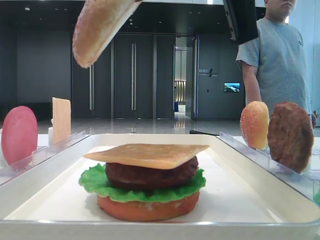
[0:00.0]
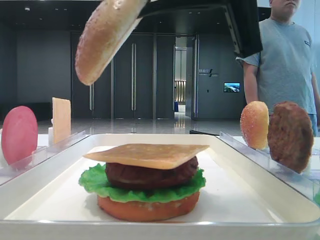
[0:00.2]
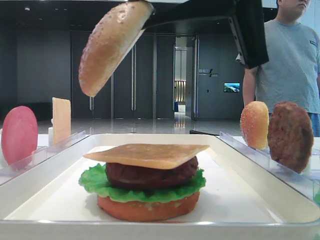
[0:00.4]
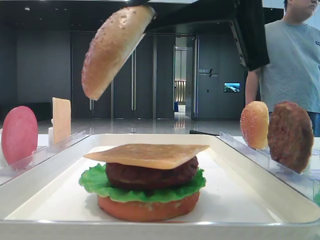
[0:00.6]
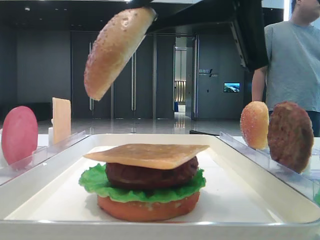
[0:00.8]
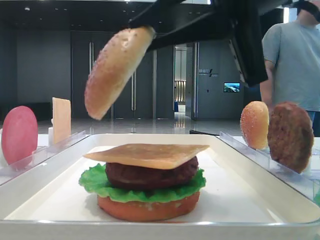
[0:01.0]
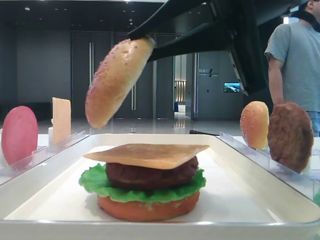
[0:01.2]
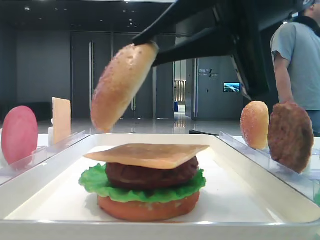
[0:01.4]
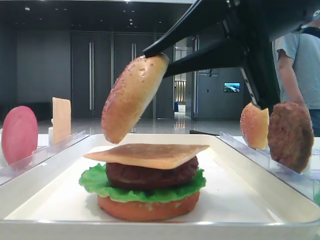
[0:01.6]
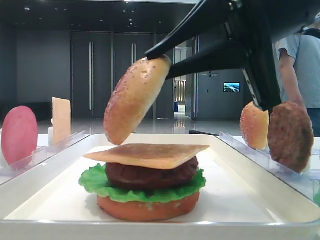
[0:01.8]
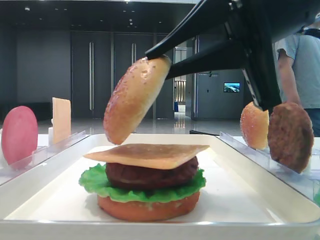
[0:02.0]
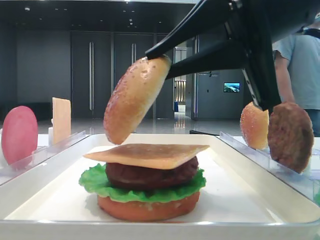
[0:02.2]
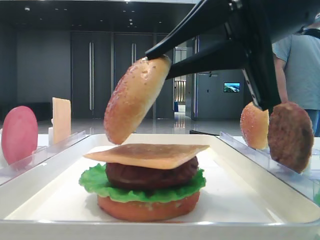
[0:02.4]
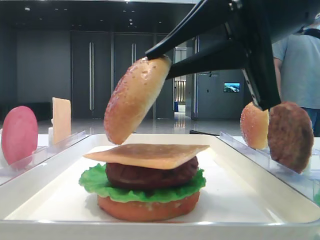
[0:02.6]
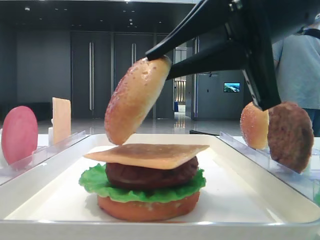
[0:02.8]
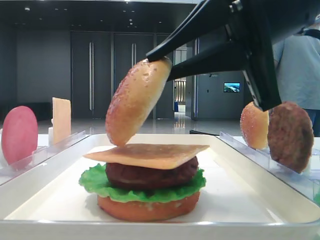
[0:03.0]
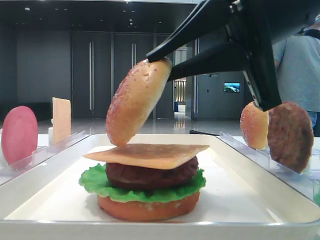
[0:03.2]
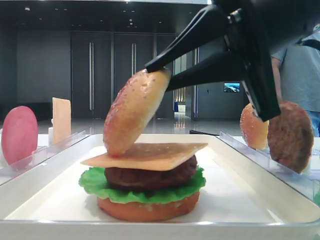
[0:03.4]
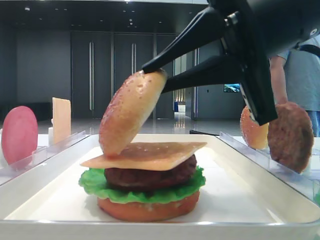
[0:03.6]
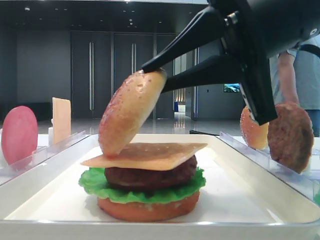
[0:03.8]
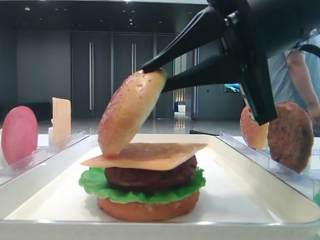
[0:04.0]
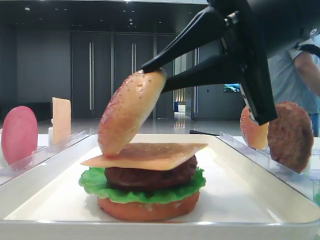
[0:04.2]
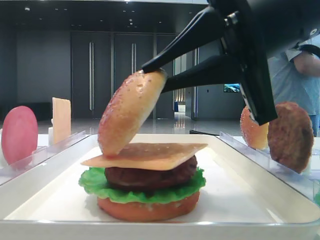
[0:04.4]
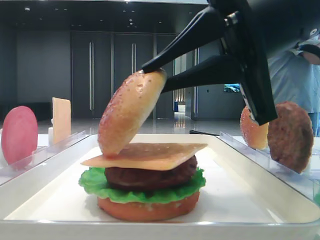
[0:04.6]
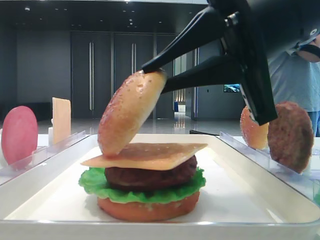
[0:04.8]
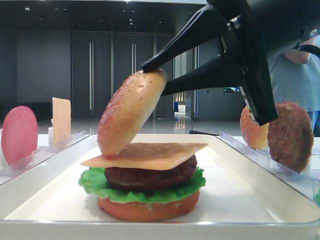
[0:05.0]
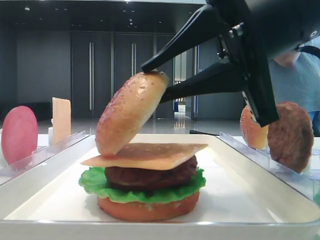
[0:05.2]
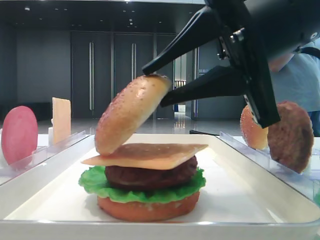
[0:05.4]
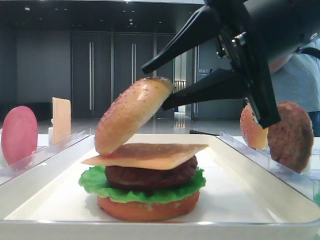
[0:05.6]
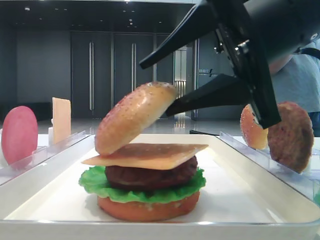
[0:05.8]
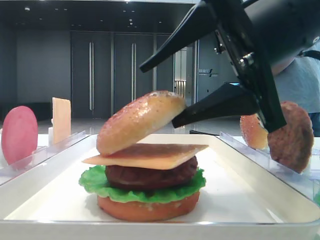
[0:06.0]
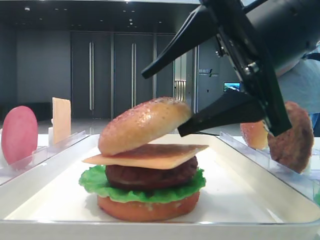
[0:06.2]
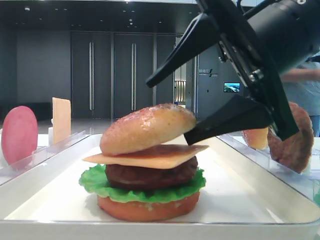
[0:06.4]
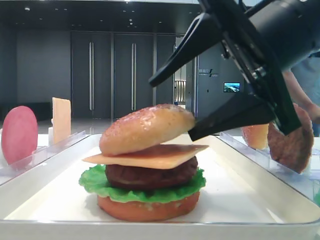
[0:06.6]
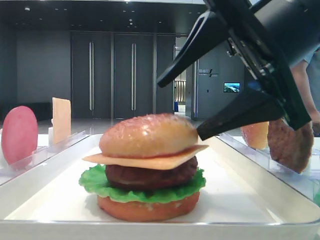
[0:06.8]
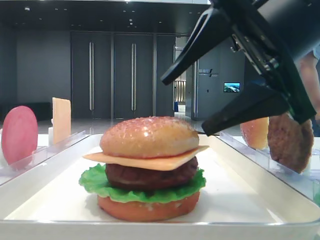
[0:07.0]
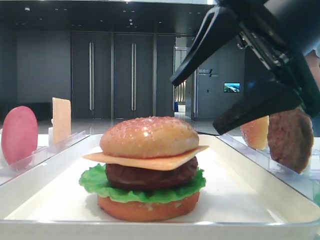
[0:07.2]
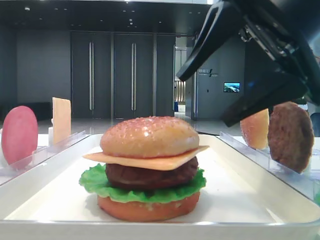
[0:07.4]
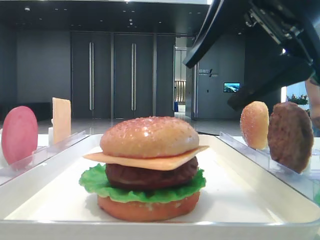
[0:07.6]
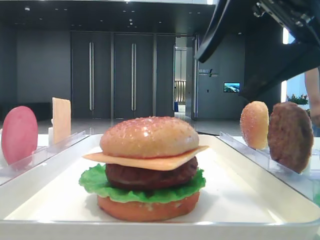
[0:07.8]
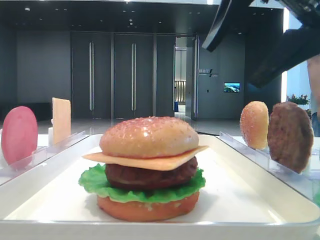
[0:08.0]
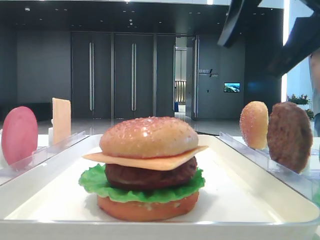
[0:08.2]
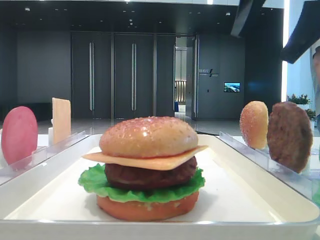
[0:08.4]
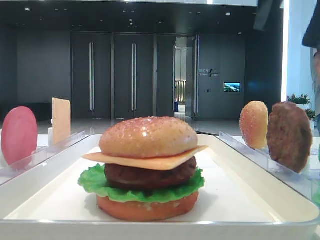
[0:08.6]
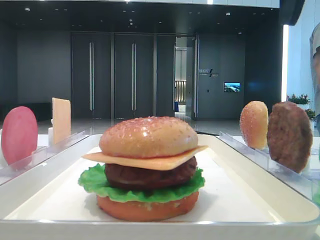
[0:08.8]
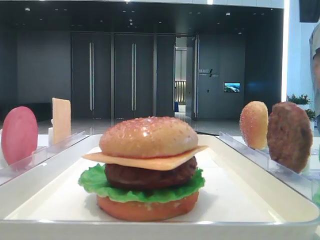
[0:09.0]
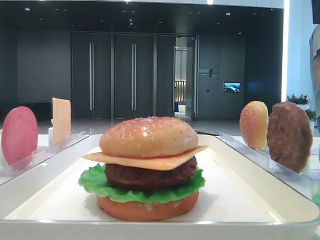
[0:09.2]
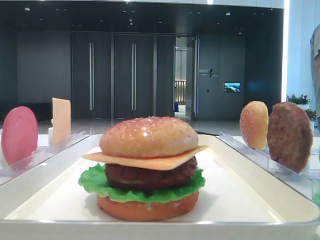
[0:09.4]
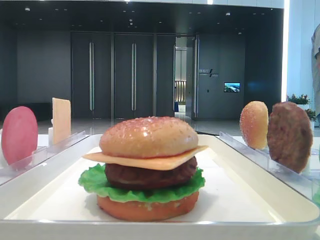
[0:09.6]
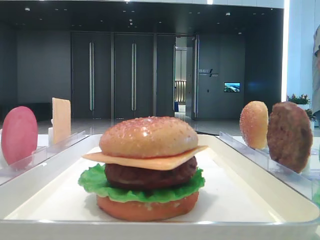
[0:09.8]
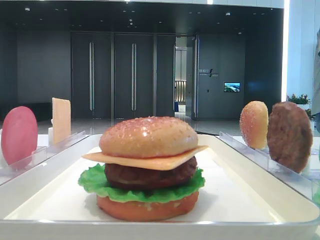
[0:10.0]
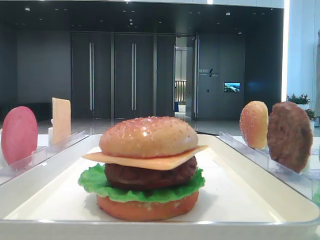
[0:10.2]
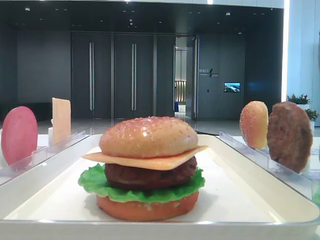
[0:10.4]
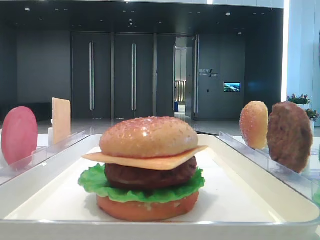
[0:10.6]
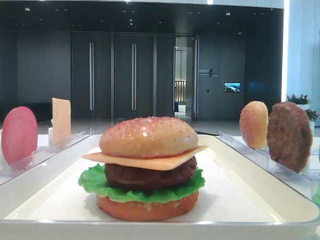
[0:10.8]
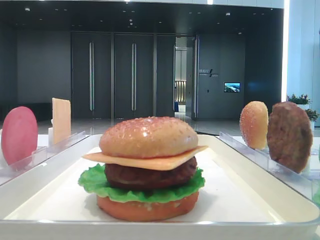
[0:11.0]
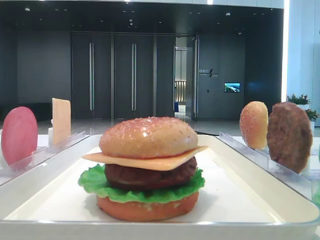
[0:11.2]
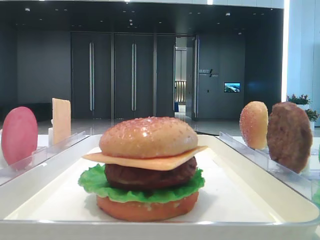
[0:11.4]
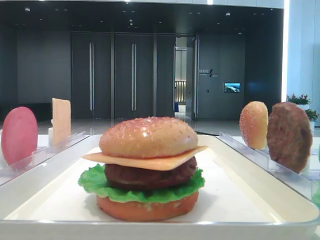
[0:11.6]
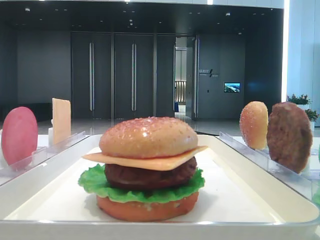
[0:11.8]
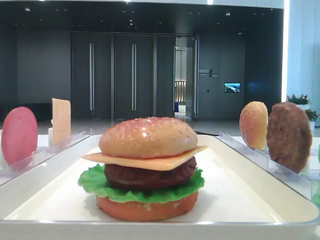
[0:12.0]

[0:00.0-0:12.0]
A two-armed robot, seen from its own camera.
Step, 0.0 to 6.6 s: Place the top bread slice on the cheese with the right hand.
0.0 to 1.6 s: The right gripper shifts about 5 cm downward.
1.6 to 3.0 s: Both grippers stay put.
3.0 to 4.4 s: The two grippers keep their place.
4.4 to 6.0 s: The right gripper opens up.
6.0 to 7.6 s: The grippers make only small movements.
7.6 to 9.0 s: The right gripper heads upward and to the right, covering approximately 10 cm.
9.0 to 10.4 s: The right gripper moves to the right, approximately 10 cm.
10.4 to 12.0 s: The right gripper is displaced backward by approximately 20 cm.

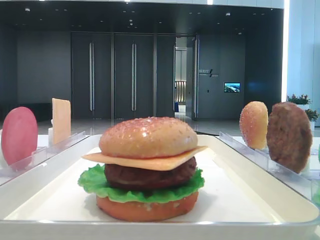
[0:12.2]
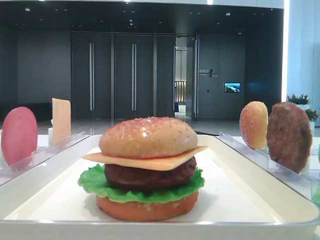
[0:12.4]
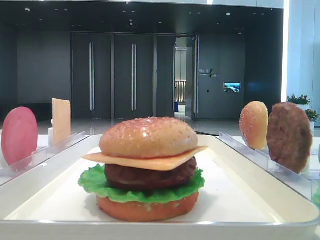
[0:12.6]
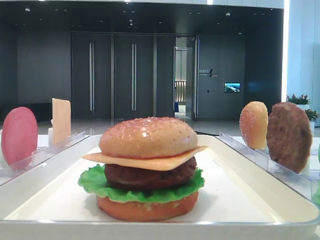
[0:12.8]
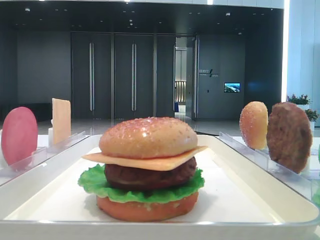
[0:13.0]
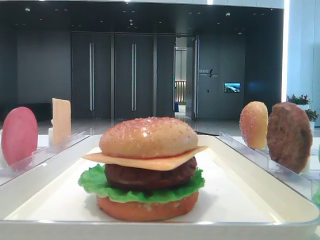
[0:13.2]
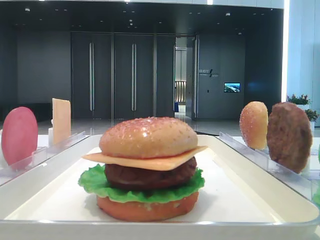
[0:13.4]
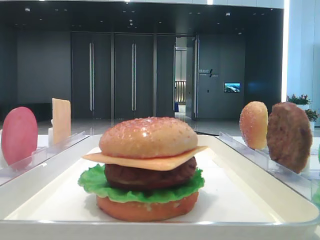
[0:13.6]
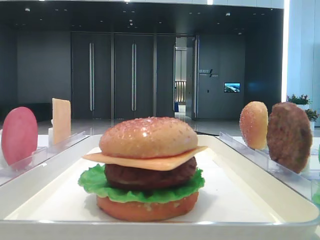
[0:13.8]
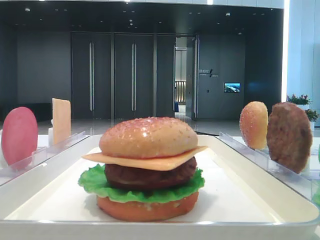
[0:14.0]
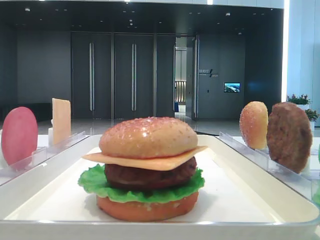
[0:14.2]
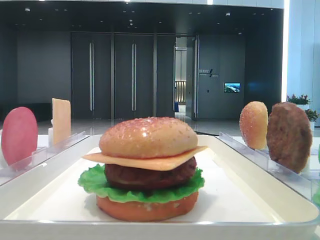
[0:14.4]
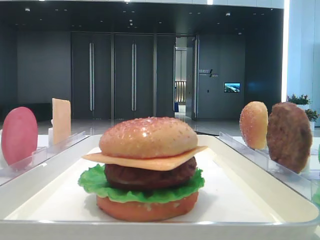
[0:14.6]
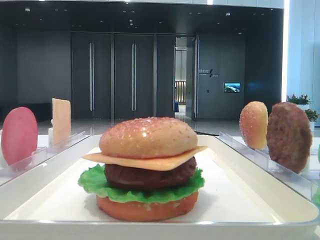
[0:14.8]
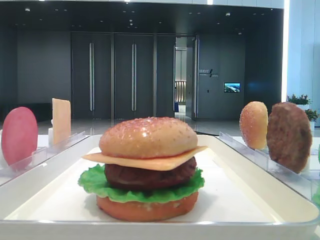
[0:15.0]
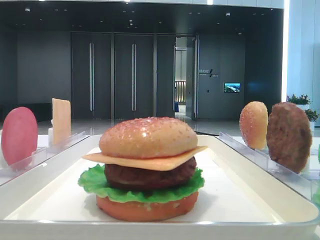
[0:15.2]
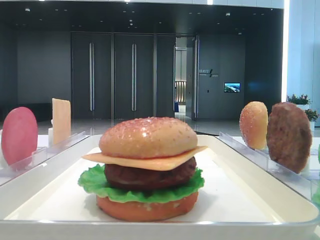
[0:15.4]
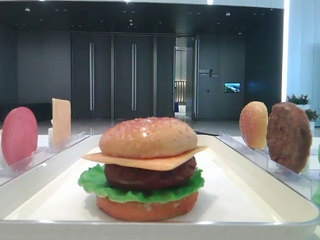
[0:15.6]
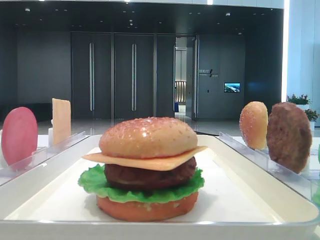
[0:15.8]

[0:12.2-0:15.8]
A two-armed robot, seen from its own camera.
14.0 to 15.8 s: Both grippers stay about where they are.

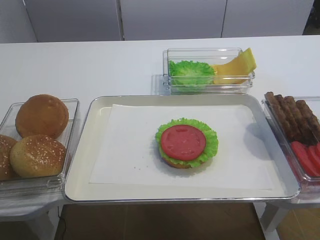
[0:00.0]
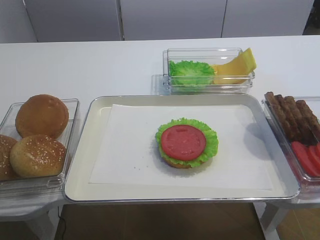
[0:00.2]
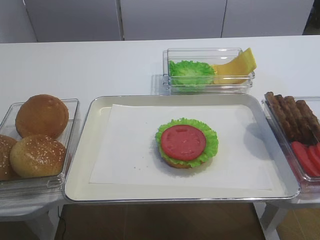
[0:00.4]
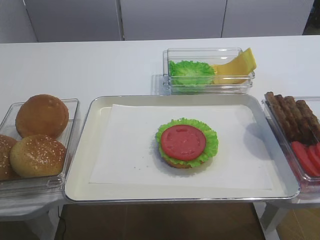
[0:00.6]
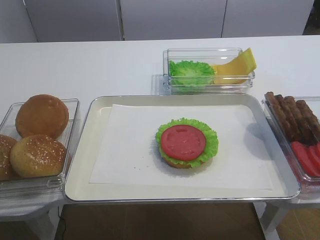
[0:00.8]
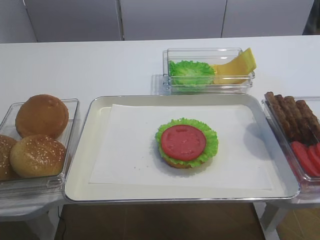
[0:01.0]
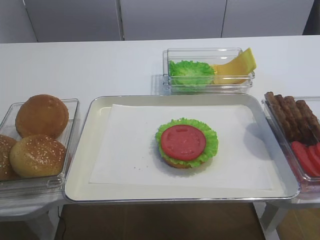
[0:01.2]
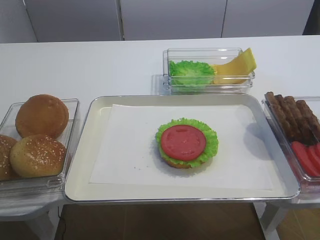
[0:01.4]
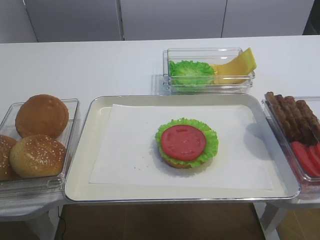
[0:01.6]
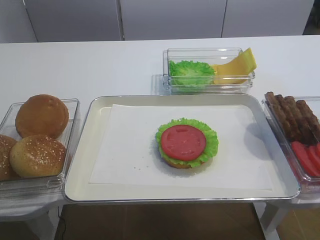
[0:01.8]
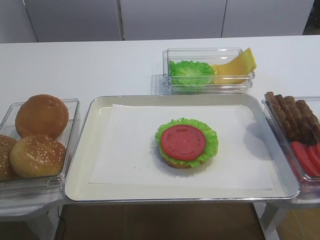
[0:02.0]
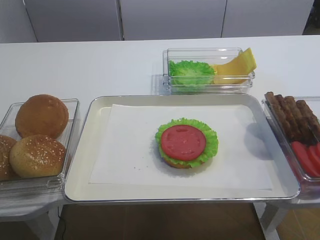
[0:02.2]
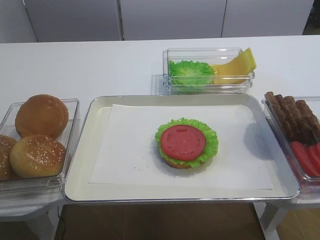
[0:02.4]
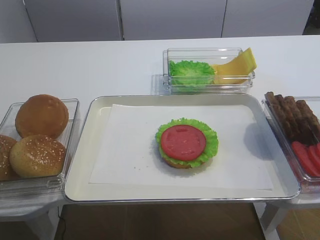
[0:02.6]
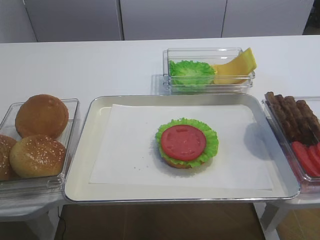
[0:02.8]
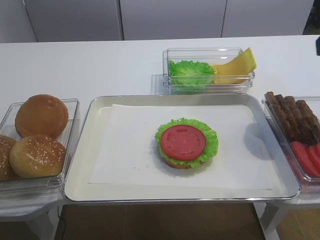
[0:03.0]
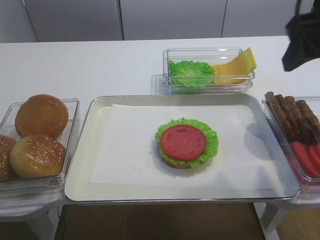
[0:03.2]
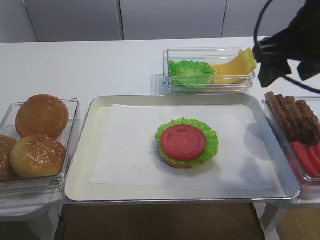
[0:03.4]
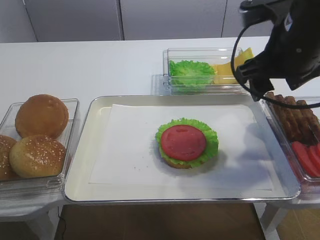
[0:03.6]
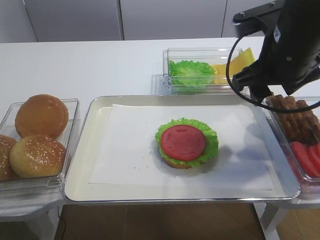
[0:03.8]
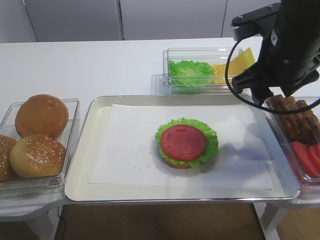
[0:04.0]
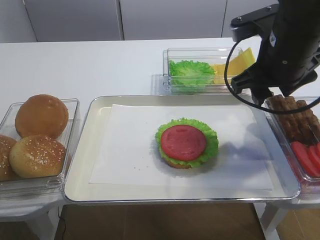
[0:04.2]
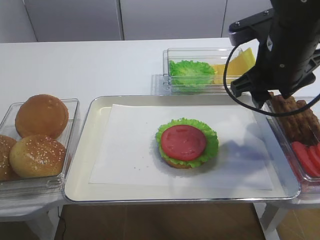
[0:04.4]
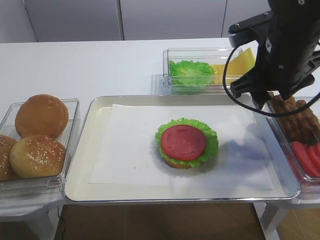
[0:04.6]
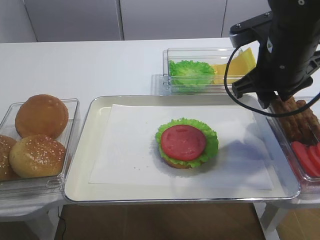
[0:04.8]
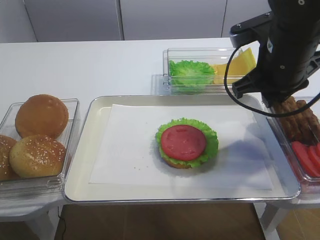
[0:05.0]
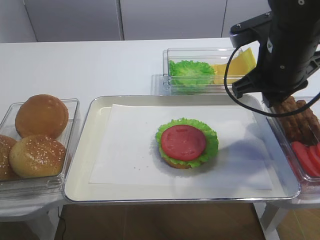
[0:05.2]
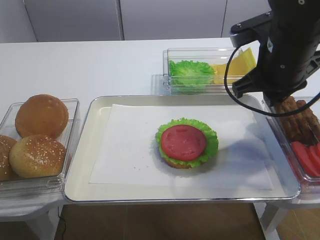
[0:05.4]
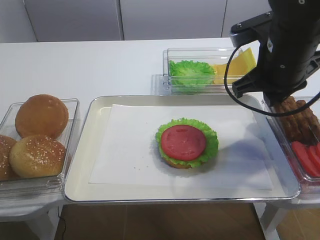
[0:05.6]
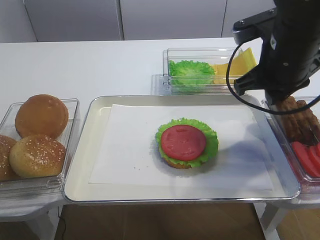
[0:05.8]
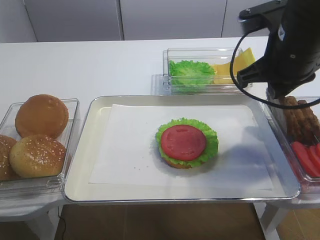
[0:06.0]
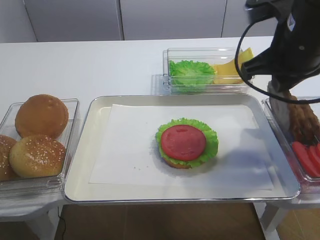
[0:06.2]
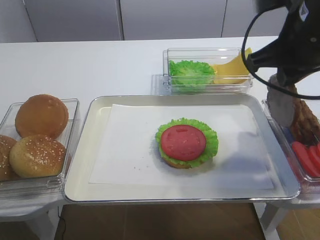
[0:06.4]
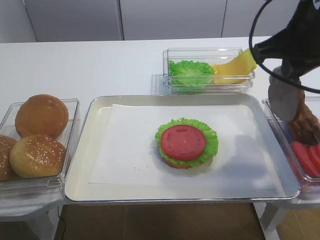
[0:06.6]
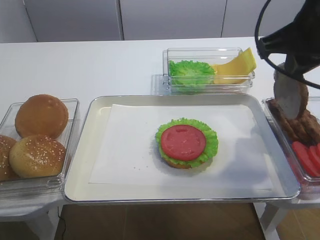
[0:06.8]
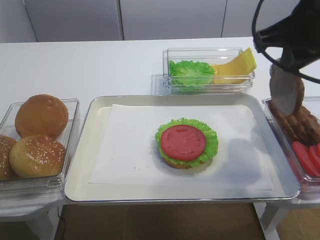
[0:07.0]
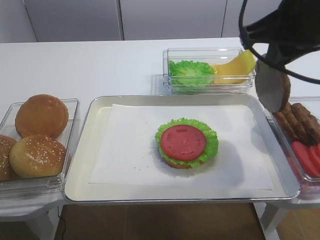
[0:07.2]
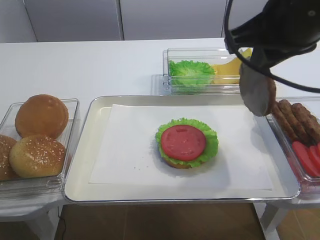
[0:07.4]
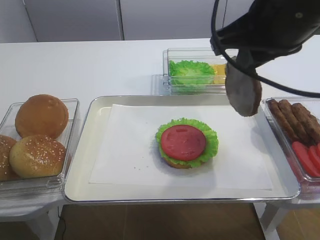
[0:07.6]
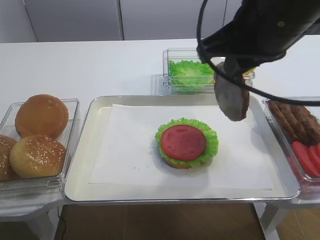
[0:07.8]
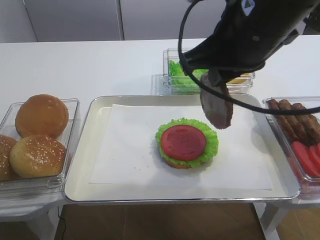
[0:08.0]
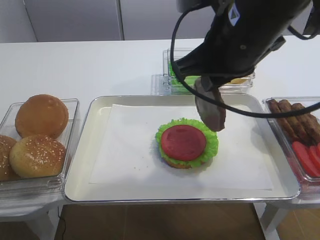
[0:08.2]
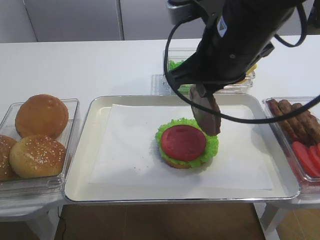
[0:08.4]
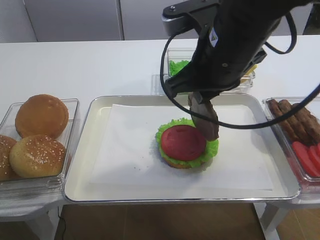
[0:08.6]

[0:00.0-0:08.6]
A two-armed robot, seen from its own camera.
Step, 0.0 to 7.0 s: Pick up the cutlet with the right gripper.
1.4 to 2.8 s: The right gripper heads forward and upward, covering some 20 cm.
2.8 to 4.4 s: The right gripper is displaced forward, downward and to the left by some 20 cm.
4.4 to 5.8 s: The right gripper closes up.
5.8 to 7.2 s: The right gripper is displaced upward by some 10 cm.
7.2 to 8.6 s: The right gripper shifts roughly 10 cm to the left and downward.
